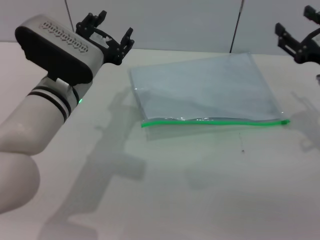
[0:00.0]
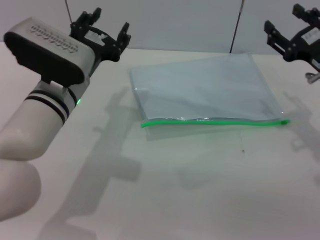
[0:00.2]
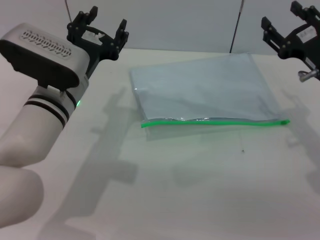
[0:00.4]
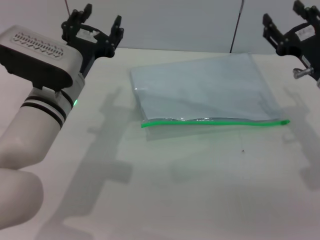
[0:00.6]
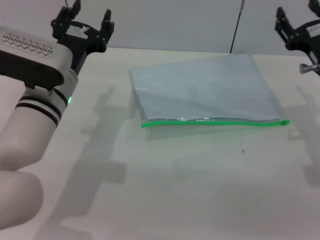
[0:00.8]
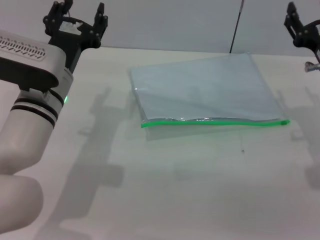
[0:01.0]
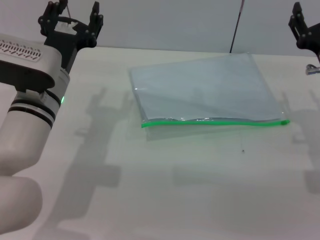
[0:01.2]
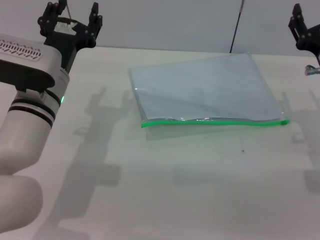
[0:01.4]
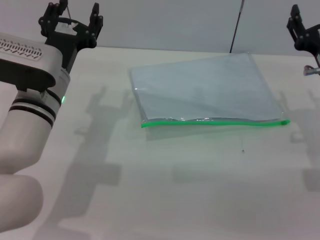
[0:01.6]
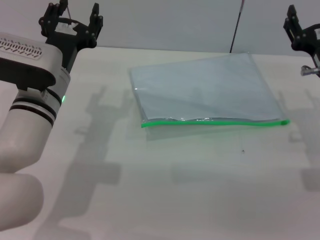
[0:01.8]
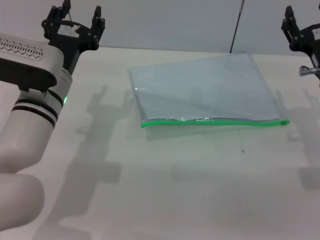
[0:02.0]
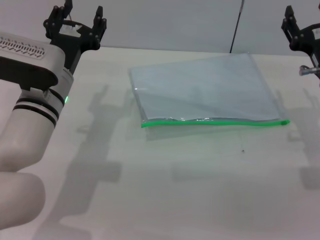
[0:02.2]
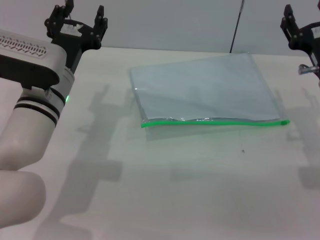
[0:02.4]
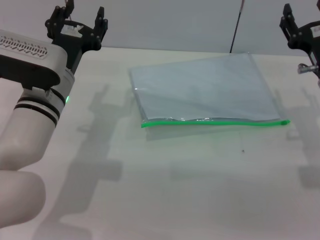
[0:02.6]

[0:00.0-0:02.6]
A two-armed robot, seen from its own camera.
0:01.2 to 0:02.6: The two grippers keep their place.

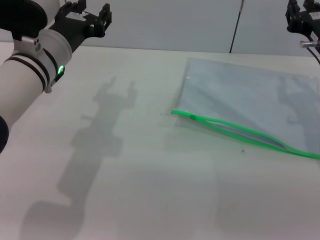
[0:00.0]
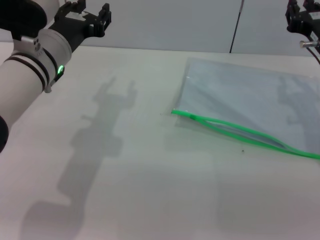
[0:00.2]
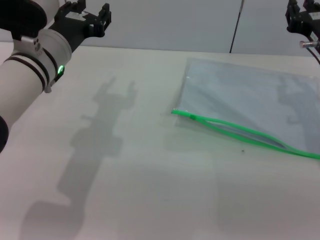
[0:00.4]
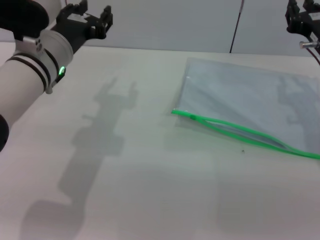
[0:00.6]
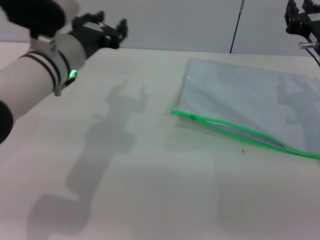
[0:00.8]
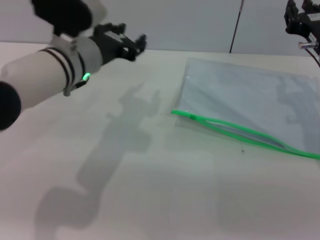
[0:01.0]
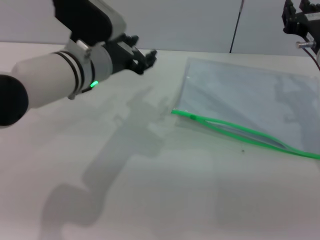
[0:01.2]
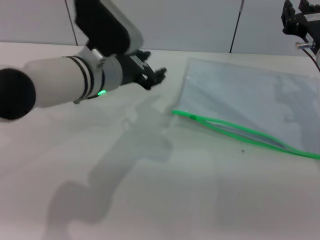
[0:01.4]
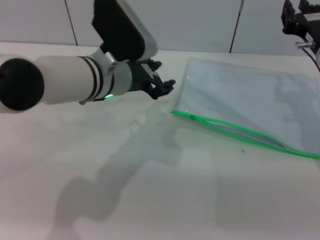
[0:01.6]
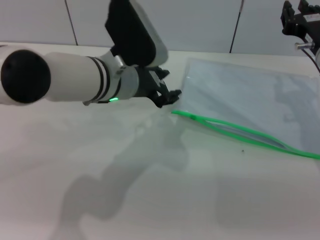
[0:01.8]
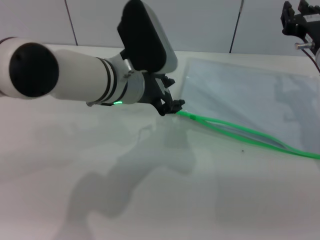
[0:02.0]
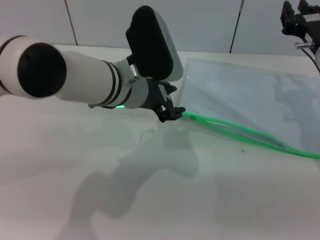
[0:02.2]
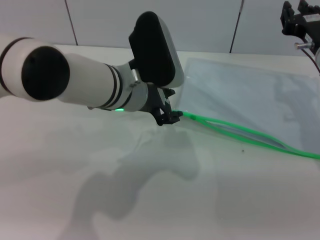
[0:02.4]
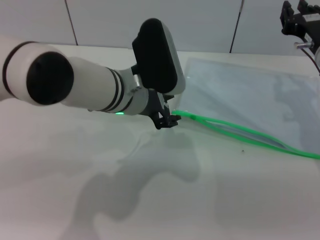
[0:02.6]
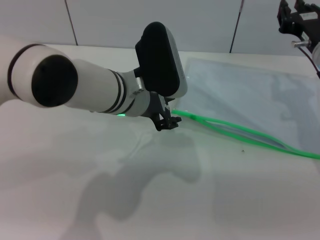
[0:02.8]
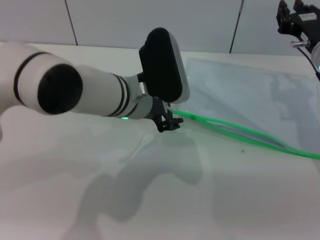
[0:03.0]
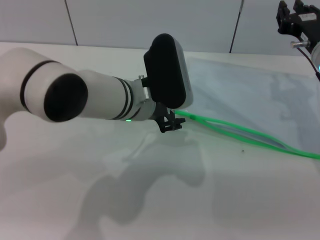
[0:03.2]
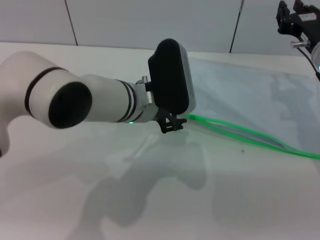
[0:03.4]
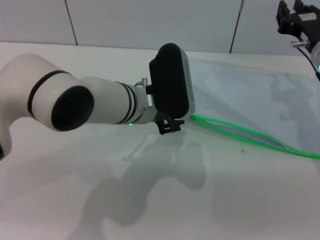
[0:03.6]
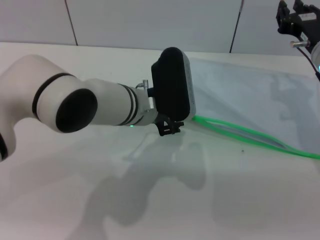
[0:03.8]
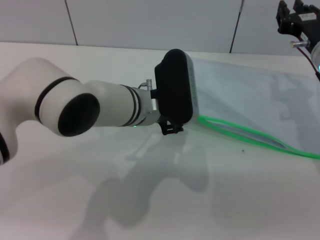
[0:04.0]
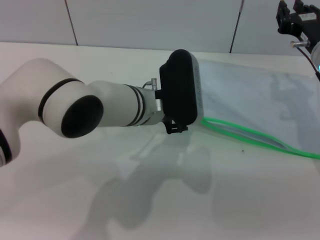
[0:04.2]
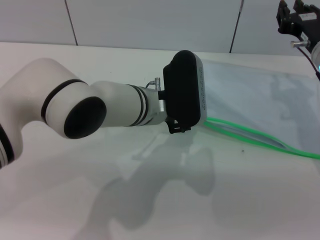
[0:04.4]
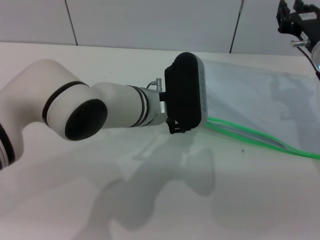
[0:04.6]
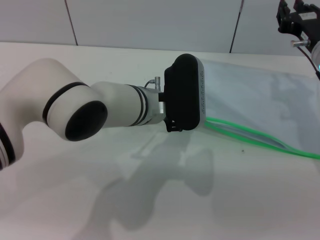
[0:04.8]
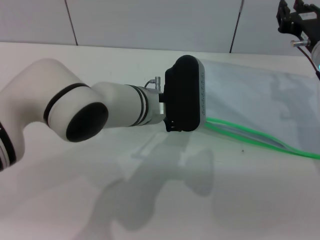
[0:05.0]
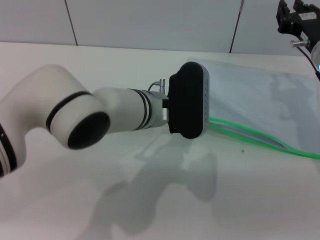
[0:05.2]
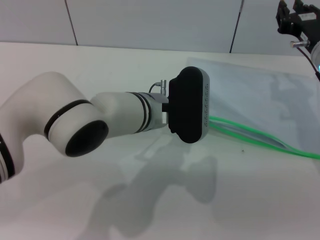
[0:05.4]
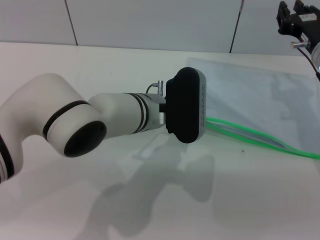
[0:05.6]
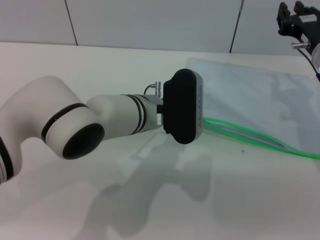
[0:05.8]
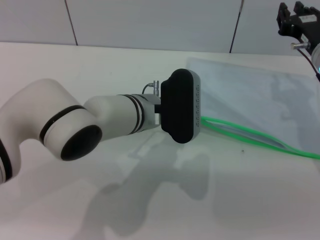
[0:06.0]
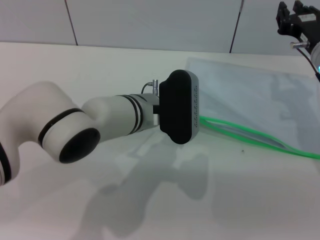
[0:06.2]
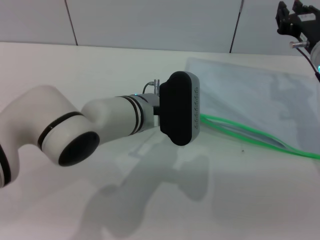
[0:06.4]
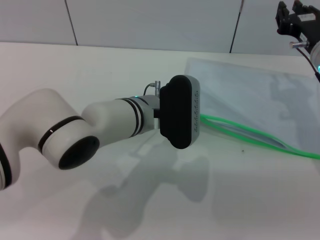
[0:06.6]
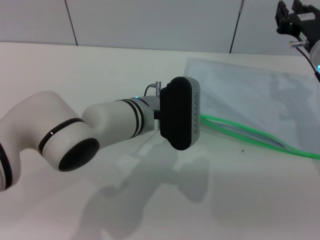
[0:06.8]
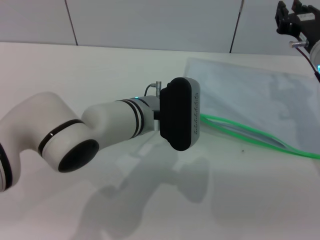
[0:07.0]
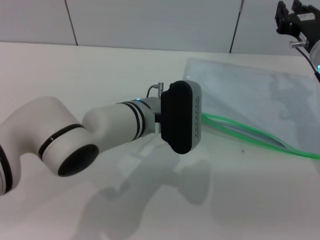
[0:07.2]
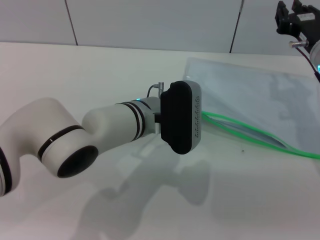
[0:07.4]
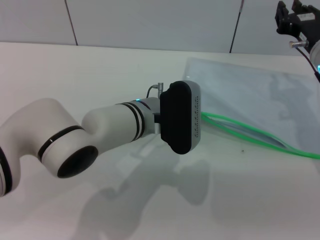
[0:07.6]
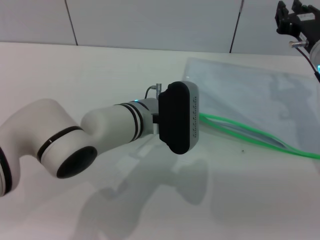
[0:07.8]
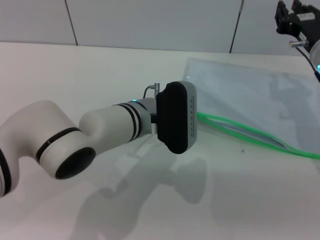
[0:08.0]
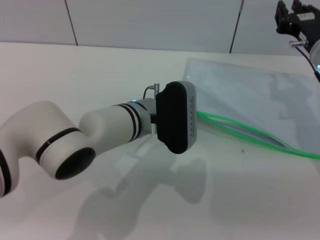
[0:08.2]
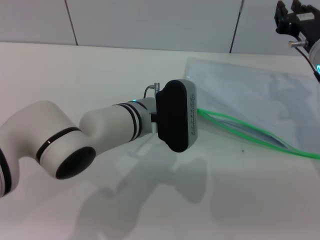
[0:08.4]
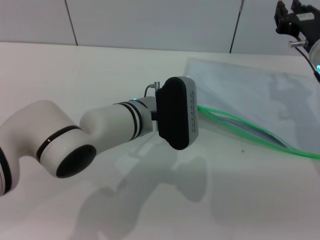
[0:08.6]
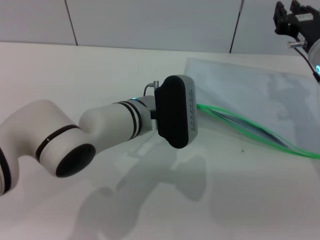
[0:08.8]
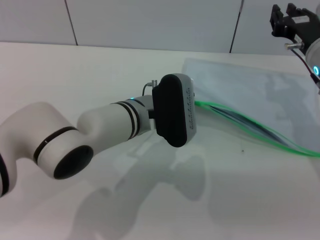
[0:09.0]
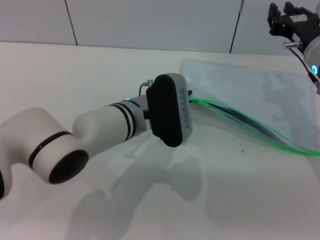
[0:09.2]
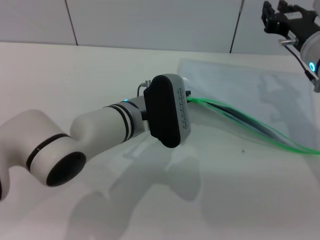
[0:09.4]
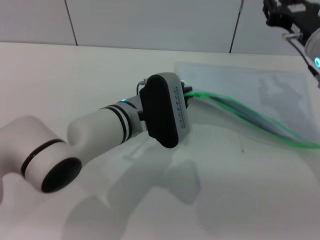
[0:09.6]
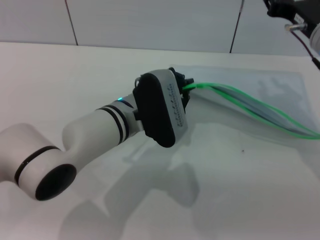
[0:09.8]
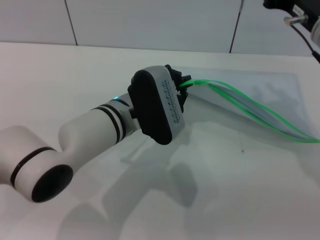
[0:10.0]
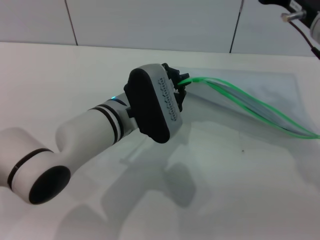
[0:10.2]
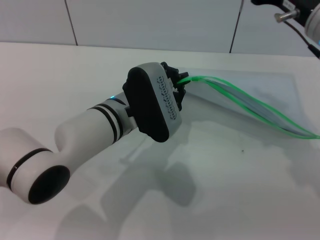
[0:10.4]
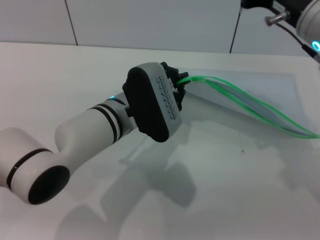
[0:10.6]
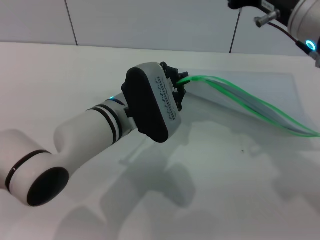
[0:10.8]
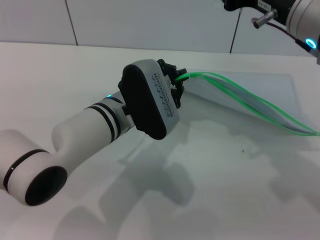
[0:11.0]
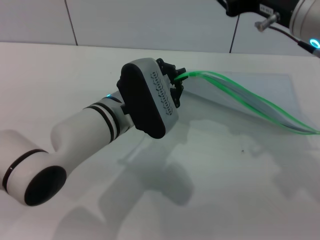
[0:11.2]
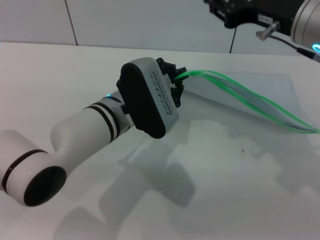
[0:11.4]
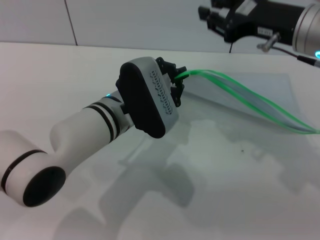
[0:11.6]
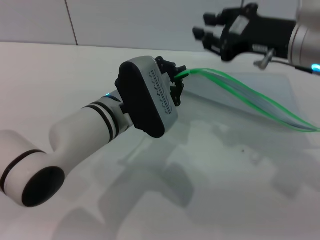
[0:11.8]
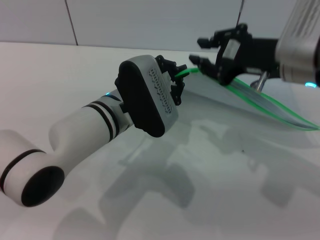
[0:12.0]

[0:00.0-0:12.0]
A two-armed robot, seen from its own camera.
Step, 0:00.0 to 0:09.8: Pick up the transparent plastic bag with the left gripper.
0:00.0 to 0:01.6: The left gripper shifts some 5 cm to the right.
0:03.0 to 0:04.4: The grippers stay close to where they were, moving slightly.
0:04.4 to 0:07.6: The grippers make only small movements.
0:07.6 to 0:09.0: The left gripper closes.
0:09.0 to 0:10.4: The right gripper travels upward by some 10 cm.

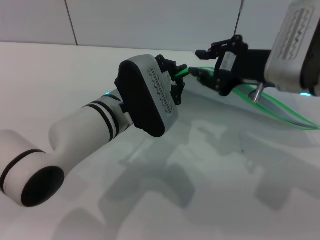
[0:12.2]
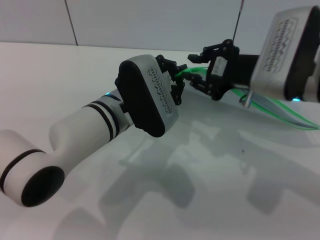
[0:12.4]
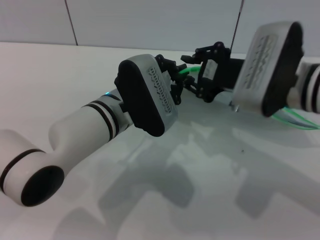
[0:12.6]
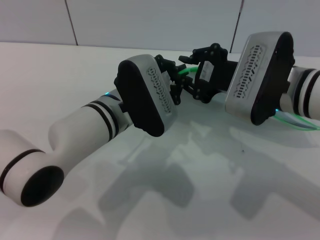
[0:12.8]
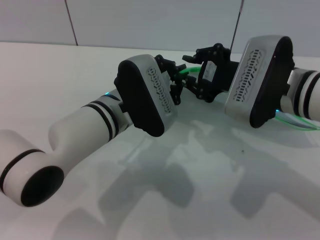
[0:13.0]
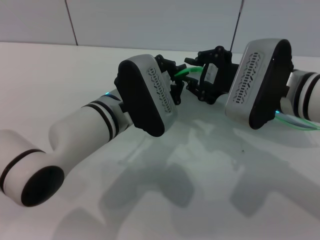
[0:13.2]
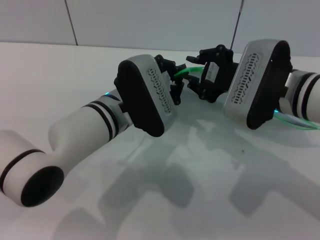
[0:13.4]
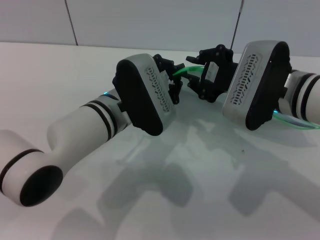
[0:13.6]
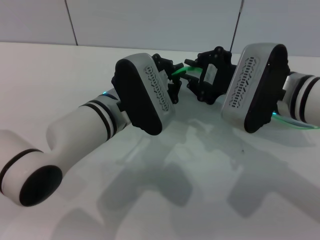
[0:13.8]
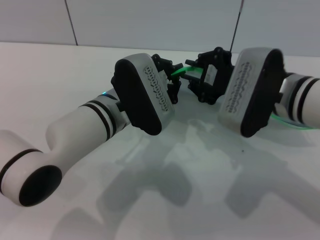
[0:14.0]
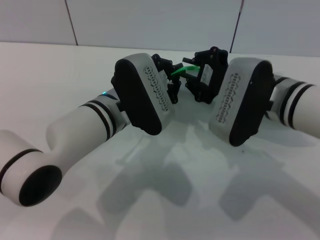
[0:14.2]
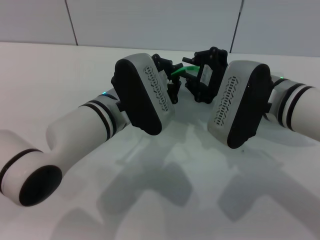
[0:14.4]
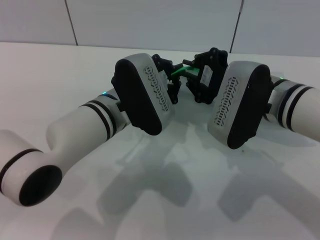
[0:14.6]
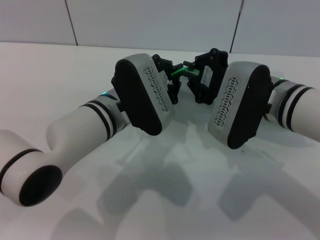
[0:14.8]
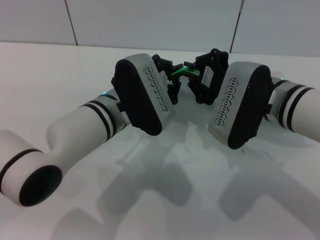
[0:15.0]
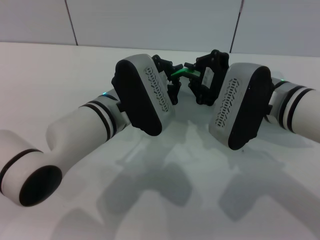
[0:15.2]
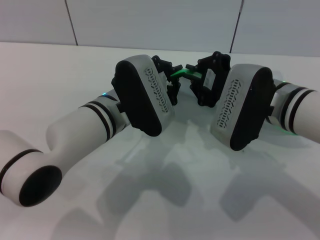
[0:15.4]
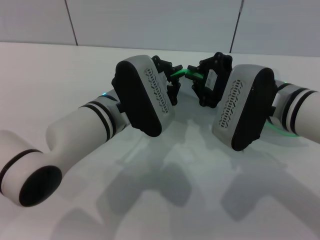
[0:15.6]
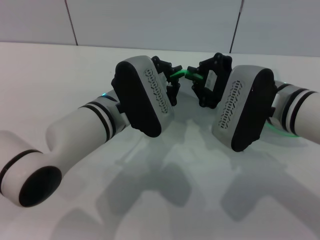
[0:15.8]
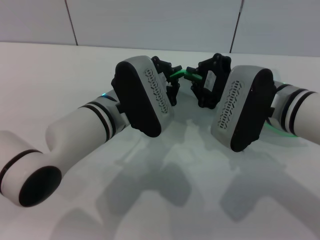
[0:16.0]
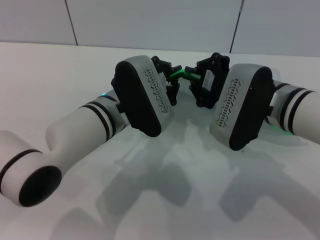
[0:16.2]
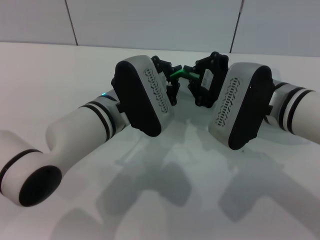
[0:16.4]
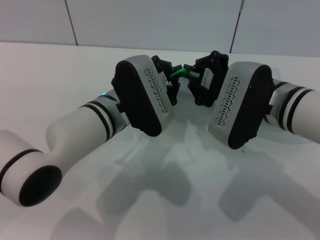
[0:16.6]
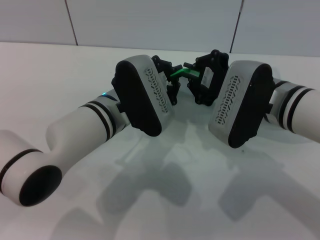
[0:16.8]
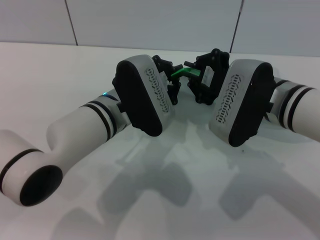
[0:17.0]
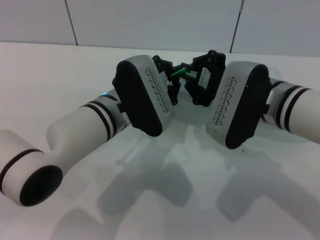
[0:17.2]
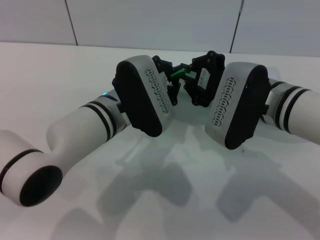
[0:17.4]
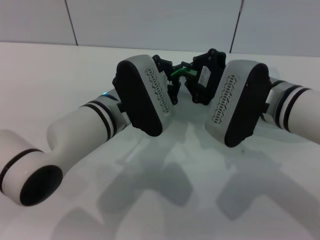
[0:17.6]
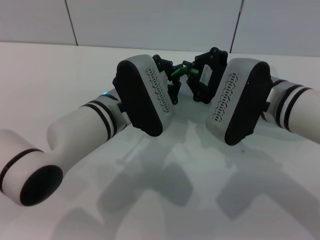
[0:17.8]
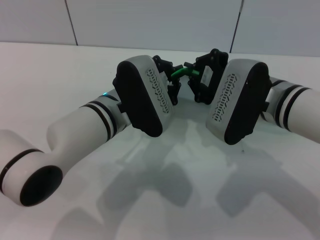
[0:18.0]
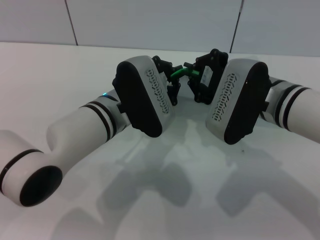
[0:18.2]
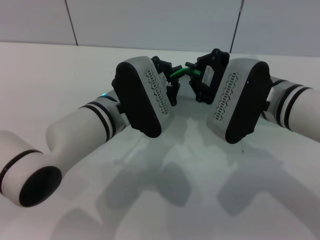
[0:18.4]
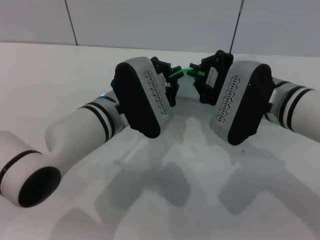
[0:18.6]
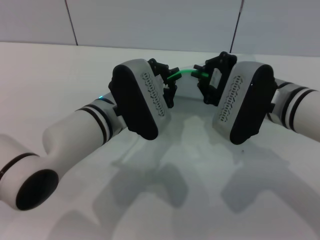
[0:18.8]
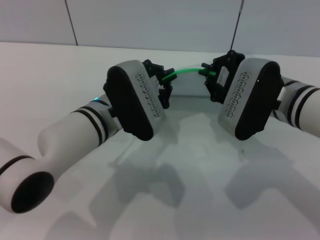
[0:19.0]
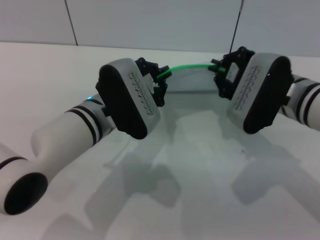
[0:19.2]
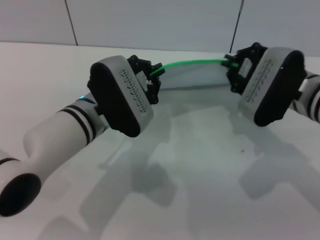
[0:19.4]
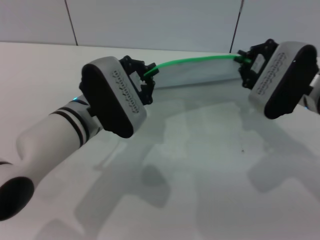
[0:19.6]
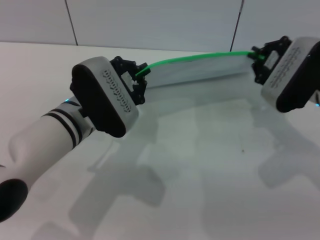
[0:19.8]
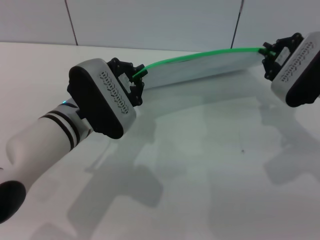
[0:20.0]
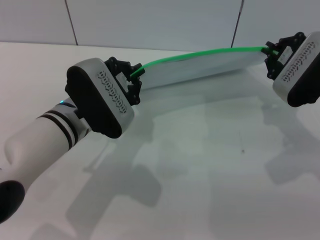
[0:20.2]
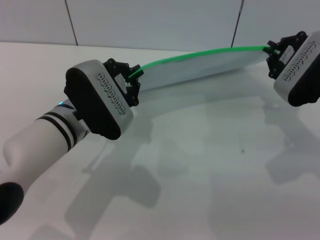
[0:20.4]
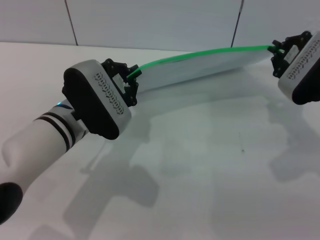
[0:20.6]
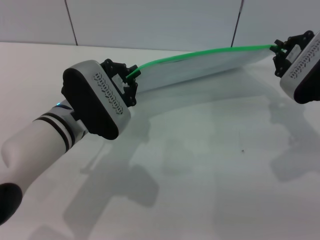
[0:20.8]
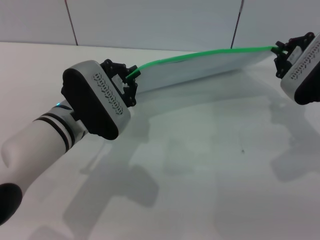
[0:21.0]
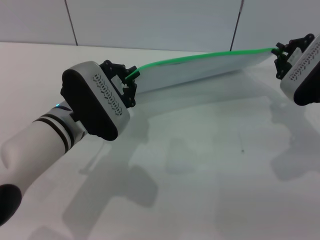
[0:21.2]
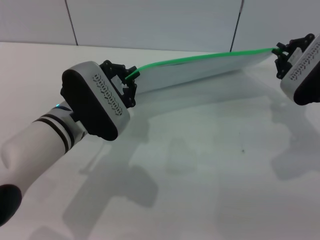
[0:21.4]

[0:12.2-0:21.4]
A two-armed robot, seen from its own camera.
0:12.2 to 0:13.8: The grippers stay close to where they were, moving slightly.
0:13.8 to 0:15.2: The right gripper closes.
0:15.2 to 0:18.4: Both grippers stay put.
0:18.4 to 0:19.8: The right gripper goes roughly 10 cm to the right.
0:19.8 to 0:21.4: The grippers stay close to where they were, moving slightly.
